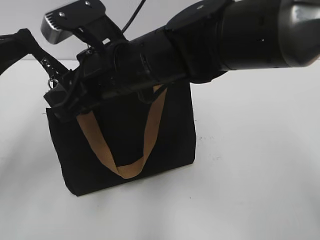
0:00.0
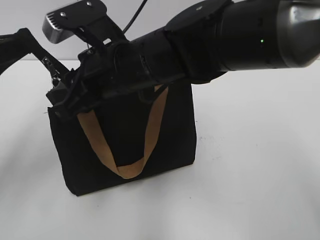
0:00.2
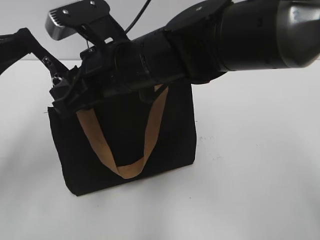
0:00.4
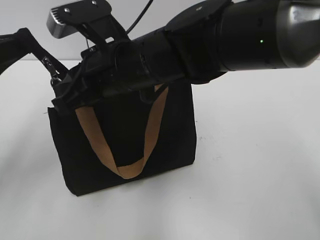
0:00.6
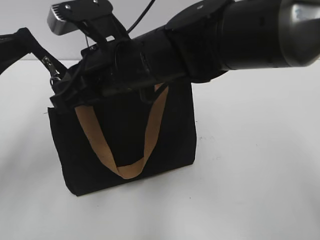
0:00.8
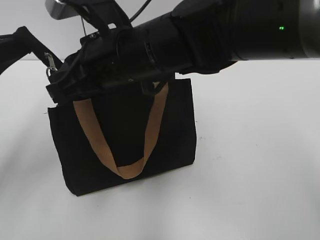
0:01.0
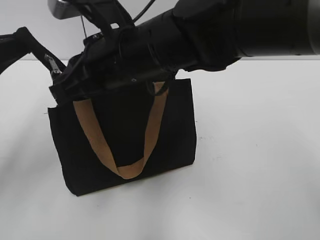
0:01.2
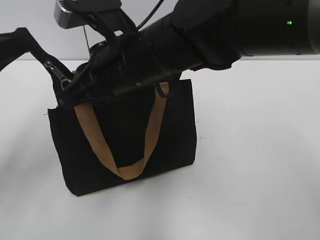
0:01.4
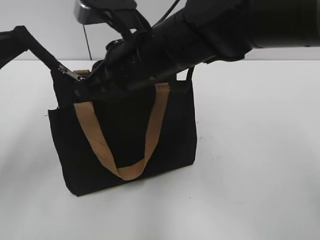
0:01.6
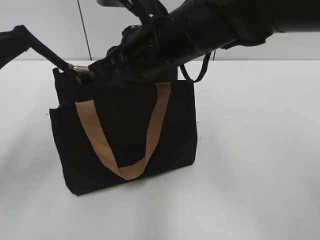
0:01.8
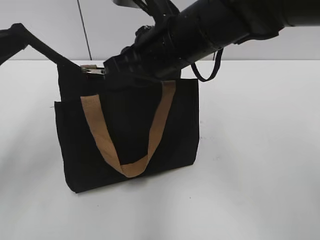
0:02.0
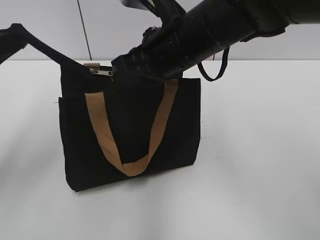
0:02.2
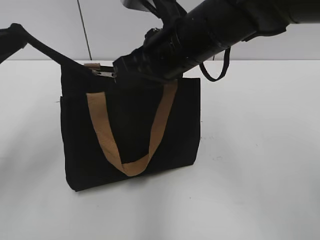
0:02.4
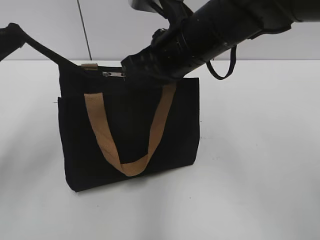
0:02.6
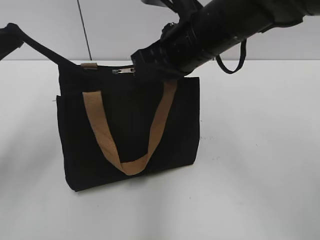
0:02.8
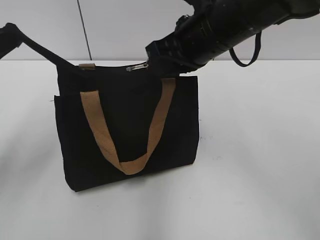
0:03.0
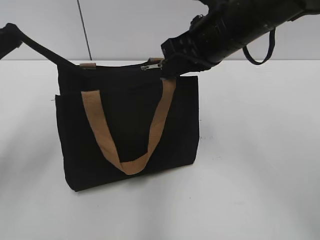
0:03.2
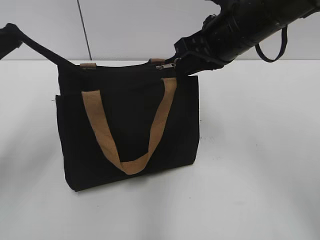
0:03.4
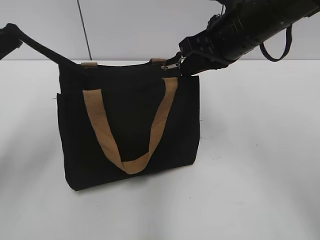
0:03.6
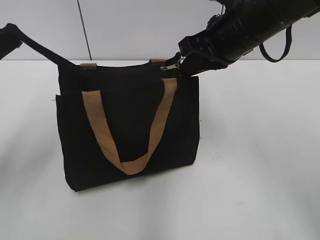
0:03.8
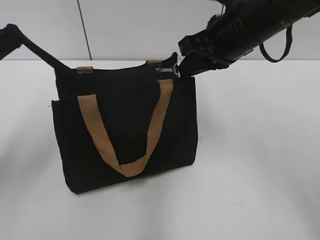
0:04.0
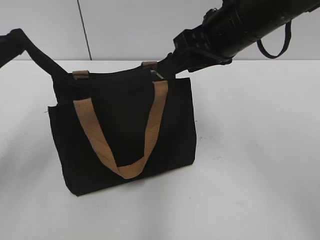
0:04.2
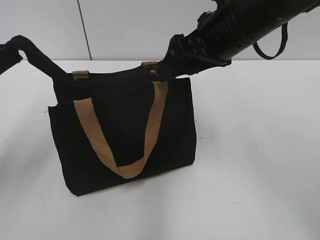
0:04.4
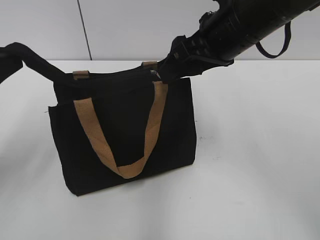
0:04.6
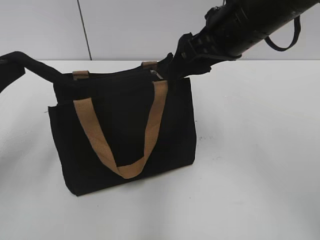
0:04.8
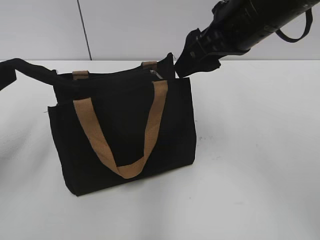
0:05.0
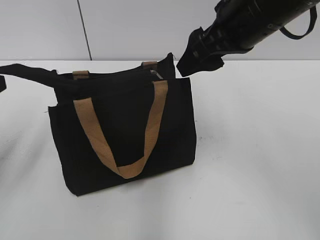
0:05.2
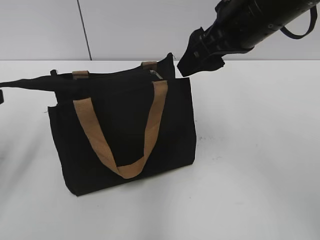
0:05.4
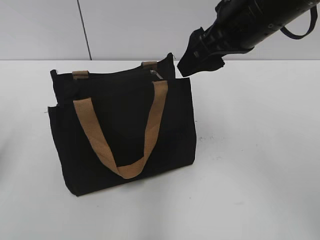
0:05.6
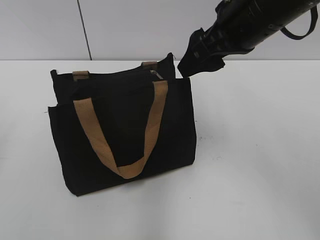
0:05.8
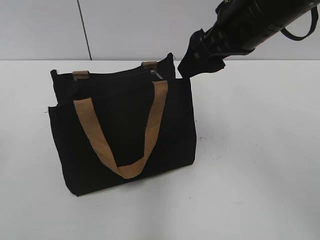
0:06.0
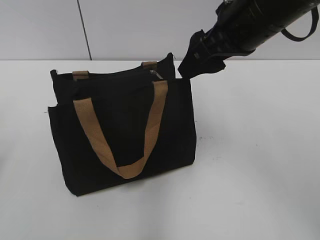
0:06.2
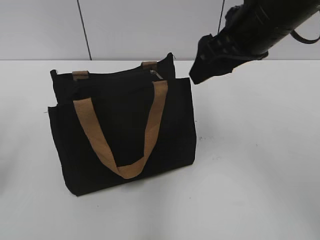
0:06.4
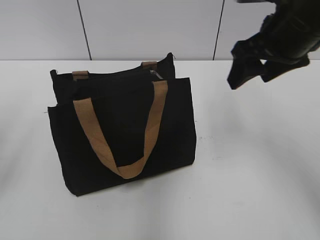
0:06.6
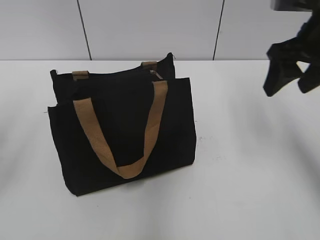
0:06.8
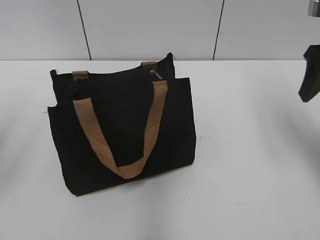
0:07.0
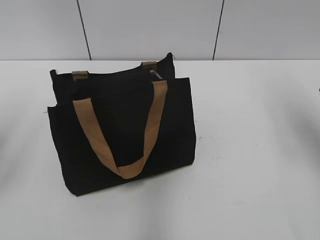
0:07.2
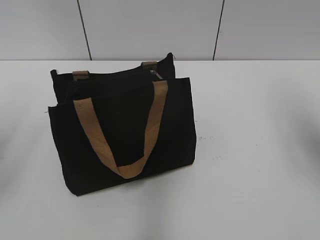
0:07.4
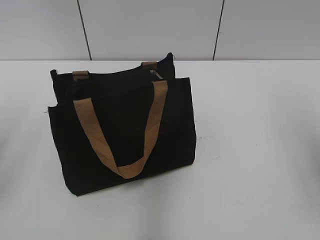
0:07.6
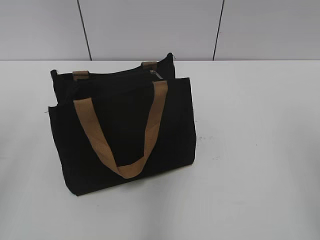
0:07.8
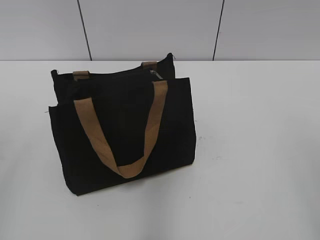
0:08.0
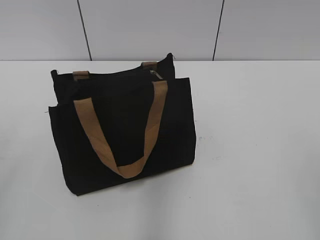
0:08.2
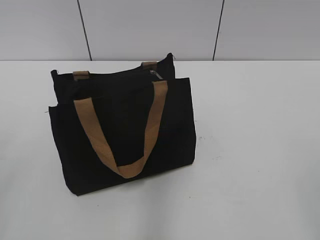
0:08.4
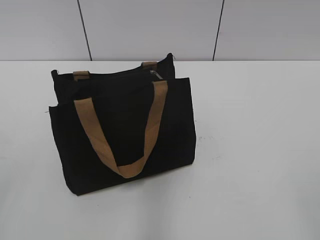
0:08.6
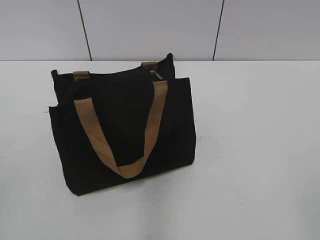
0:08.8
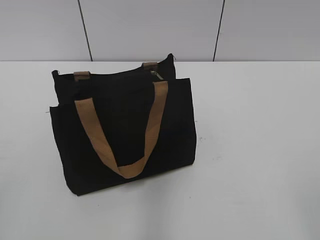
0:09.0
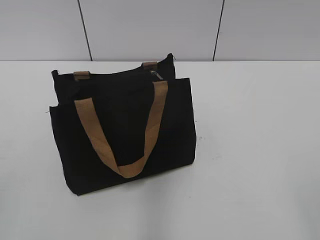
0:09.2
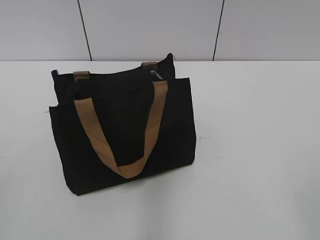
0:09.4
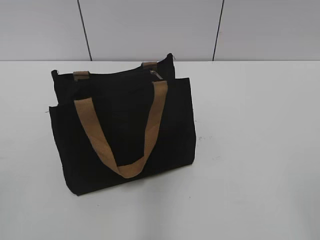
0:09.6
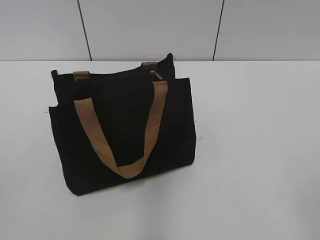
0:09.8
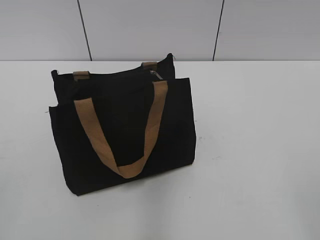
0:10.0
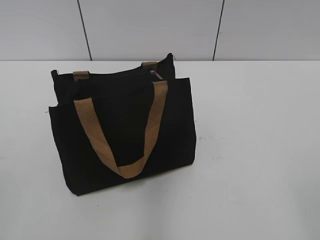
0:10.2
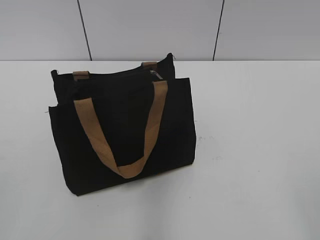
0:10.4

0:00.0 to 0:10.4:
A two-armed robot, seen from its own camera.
Step, 0:00.0 to 0:04.0: Zip up the bag with your right hand.
Step, 0:04.2 to 0:05.4: Grab the zipper with your left hand.
0:00.0 to 0:01.4: The right gripper closes up.
0:01.4 to 0:03.0: The right gripper heads to the right, covering approximately 10 cm.
0:03.0 to 0:04.4: The right gripper opens.
0:04.4 to 0:06.0: The left gripper travels to the left by approximately 10 cm, and opens.
0:06.0 to 0:07.4: The left gripper is displaced upward by some 5 cm; the right gripper heads to the right, covering about 20 cm.
0:07.4 to 0:09.0: The grippers both shift backward by approximately 25 cm.
0:09.0 to 0:10.4: Both grippers stay about where they are.

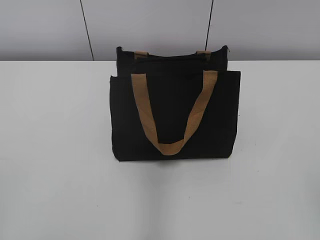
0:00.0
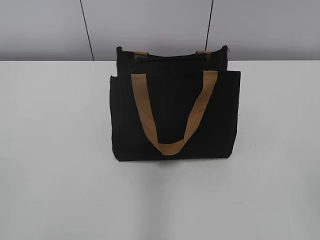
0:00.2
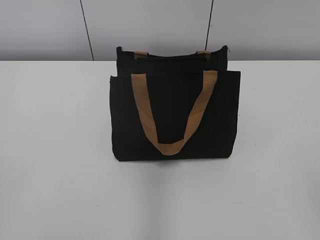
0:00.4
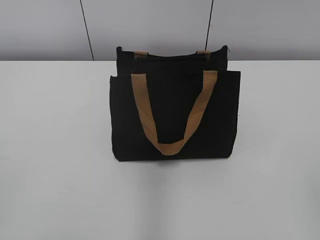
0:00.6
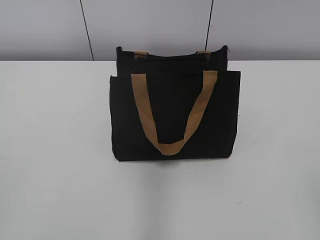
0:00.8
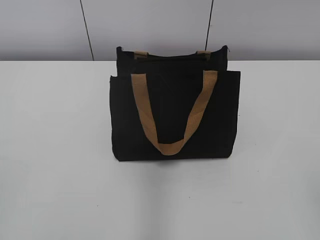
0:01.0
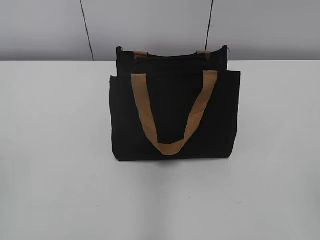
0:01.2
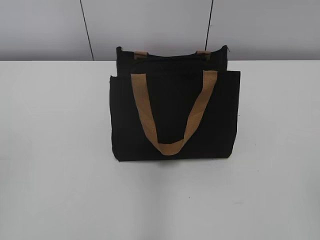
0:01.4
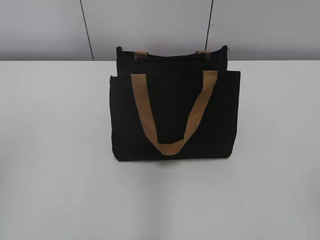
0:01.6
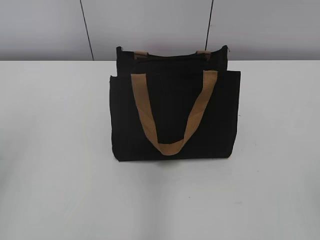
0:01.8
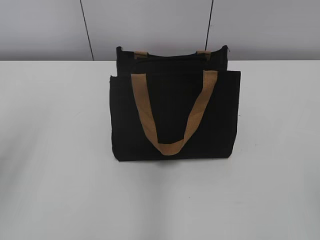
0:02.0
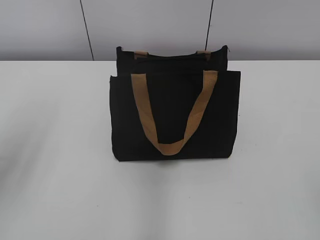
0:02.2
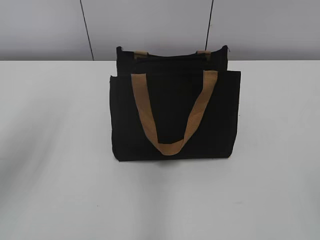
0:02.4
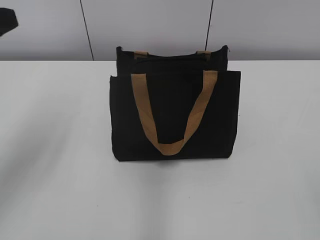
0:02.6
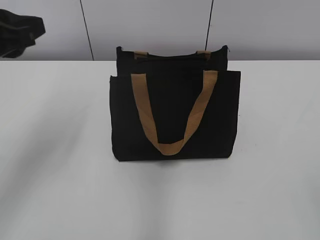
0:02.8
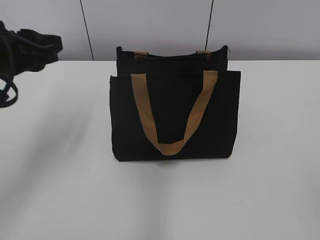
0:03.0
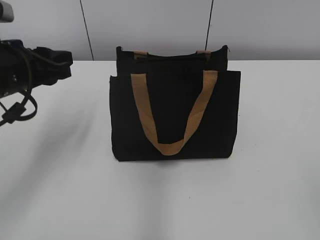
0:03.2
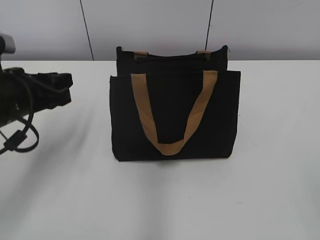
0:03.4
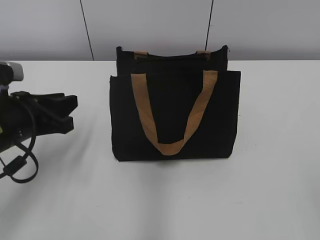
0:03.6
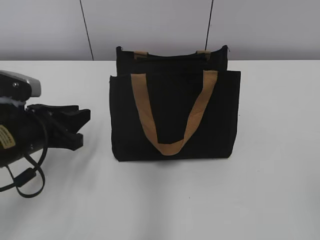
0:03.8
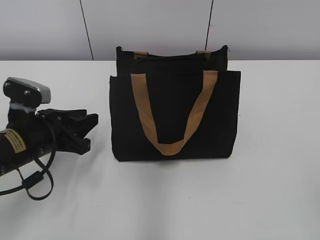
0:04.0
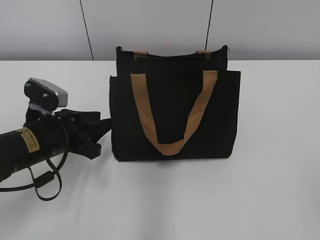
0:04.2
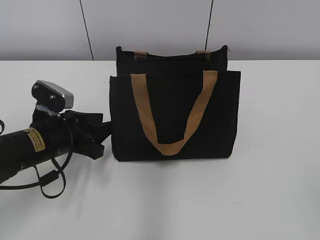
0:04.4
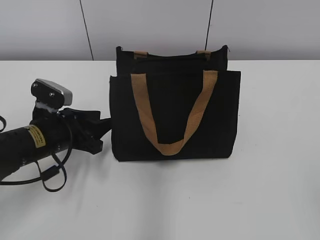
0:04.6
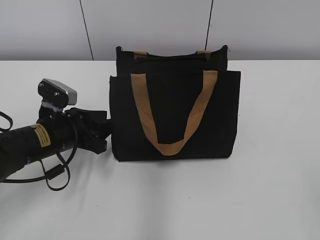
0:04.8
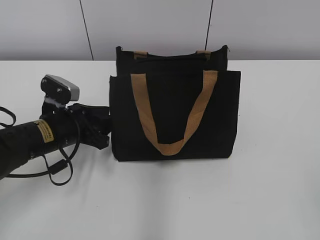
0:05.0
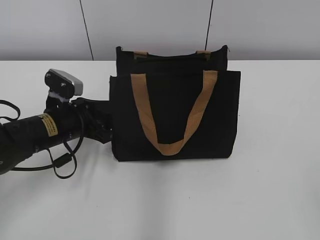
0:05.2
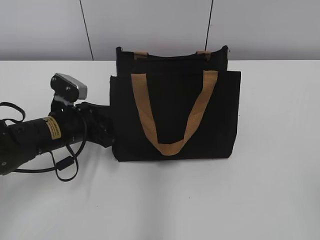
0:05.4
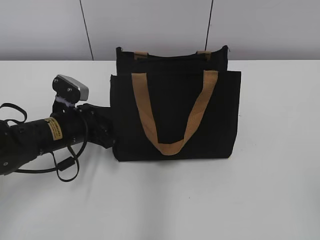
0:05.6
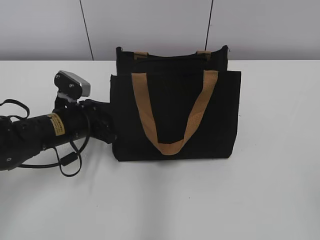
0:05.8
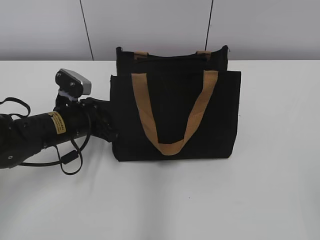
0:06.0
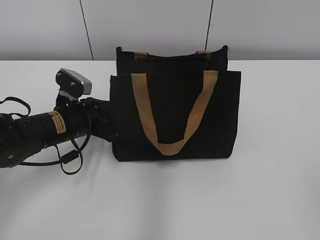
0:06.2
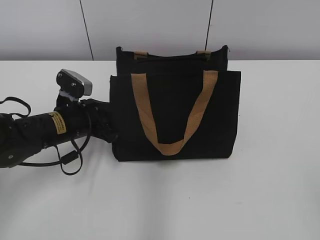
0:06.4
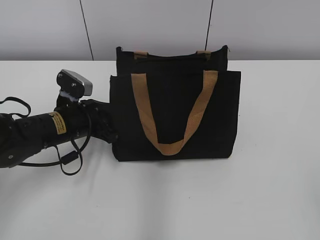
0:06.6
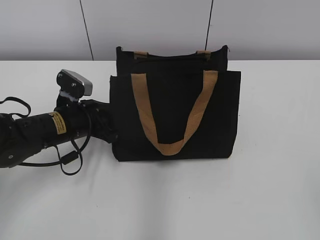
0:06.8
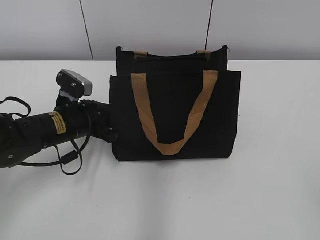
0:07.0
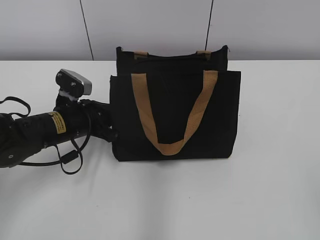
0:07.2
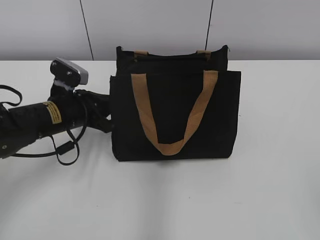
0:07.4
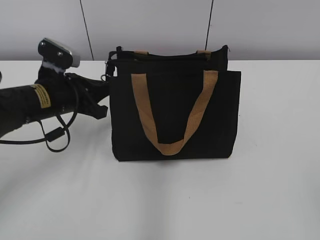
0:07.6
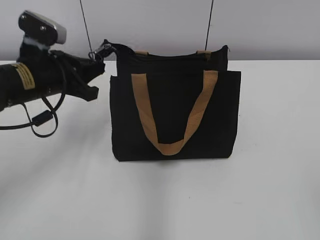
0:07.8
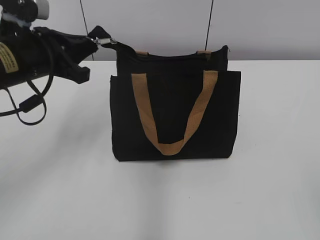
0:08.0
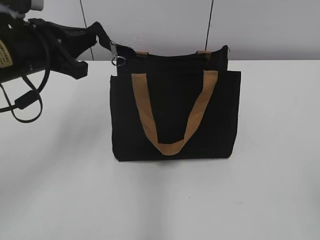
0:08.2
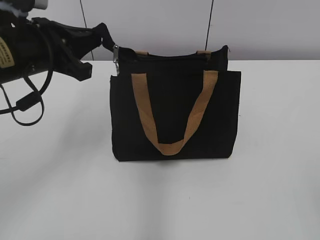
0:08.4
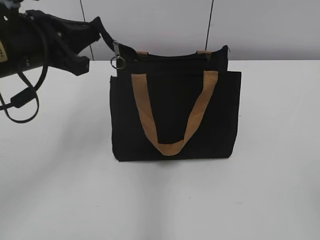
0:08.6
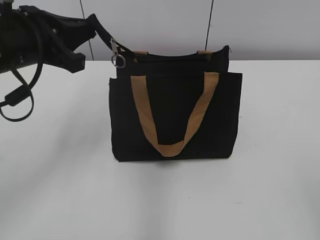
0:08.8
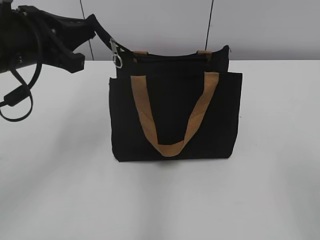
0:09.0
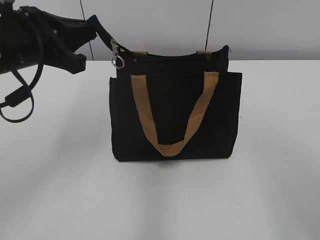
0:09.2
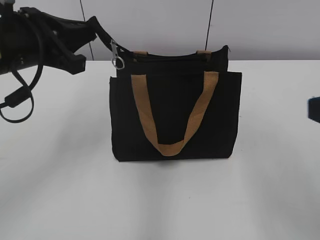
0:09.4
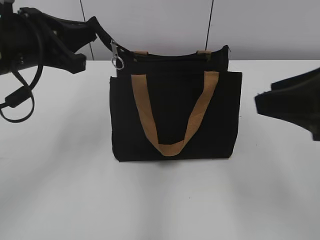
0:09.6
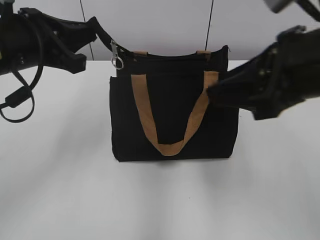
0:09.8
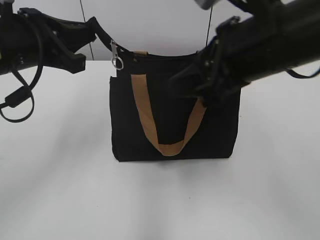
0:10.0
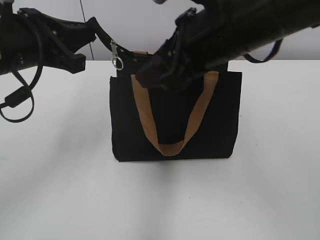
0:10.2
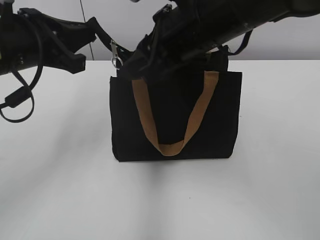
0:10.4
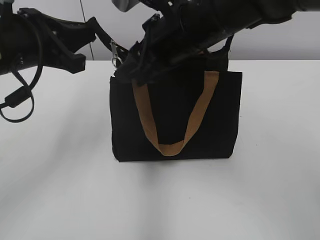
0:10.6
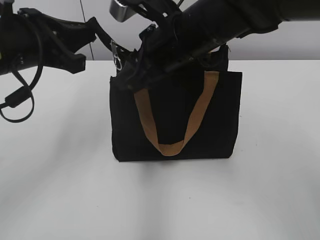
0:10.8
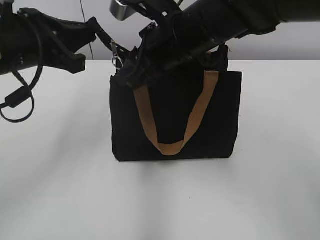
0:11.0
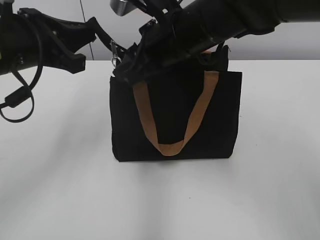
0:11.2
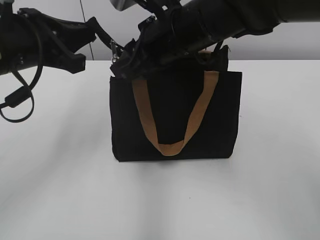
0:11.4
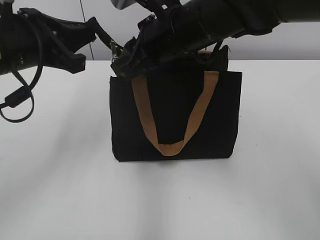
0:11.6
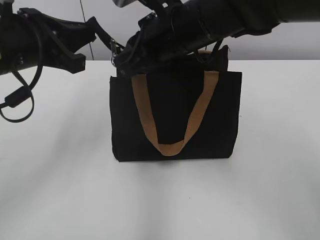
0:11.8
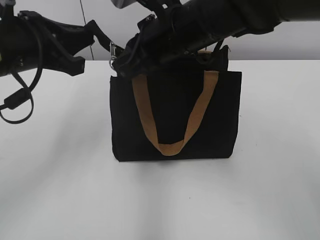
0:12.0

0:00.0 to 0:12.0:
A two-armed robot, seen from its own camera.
0:01.6 to 0:03.0: The left gripper is displaced forward and to the right by some 20 cm.
0:03.0 to 0:04.4: The left gripper is displaced downward by some 15 cm.
0:04.4 to 0:06.0: The left gripper goes about 5 cm forward.
0:06.0 to 0:07.6: The left gripper closes up.
0:07.6 to 0:09.0: The left gripper heads upward, covering roughly 15 cm.
0:09.0 to 0:10.4: The right gripper goes about 35 cm forward and to the left.
0:10.4 to 0:12.0: The right gripper ends up approximately 5 cm from where it was, and closes its fingers.
